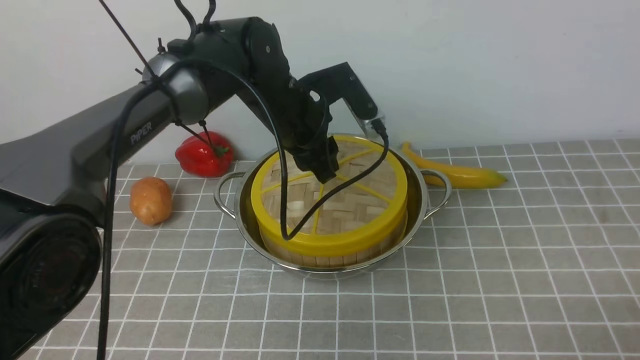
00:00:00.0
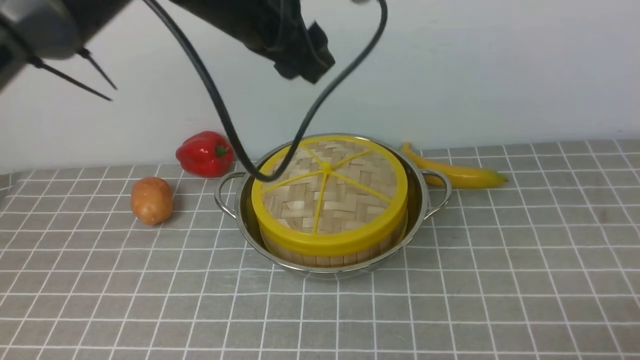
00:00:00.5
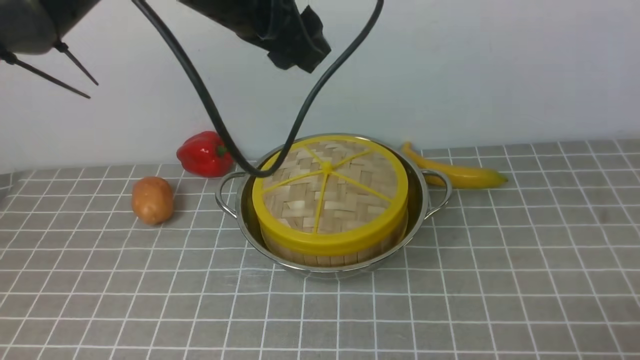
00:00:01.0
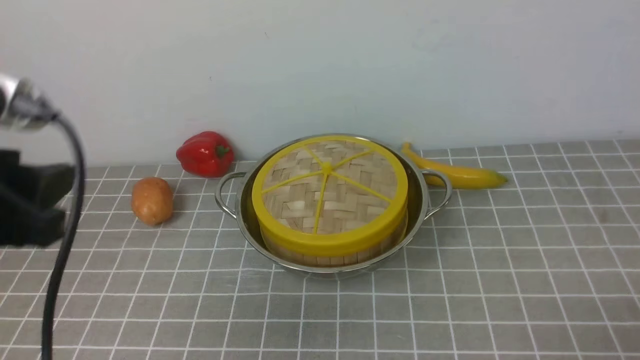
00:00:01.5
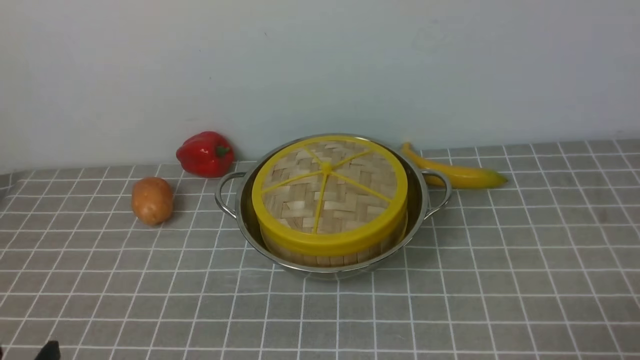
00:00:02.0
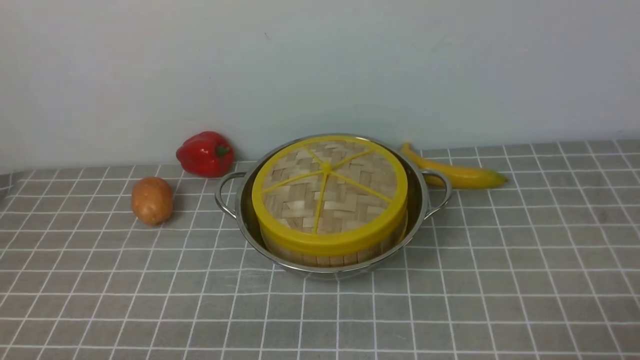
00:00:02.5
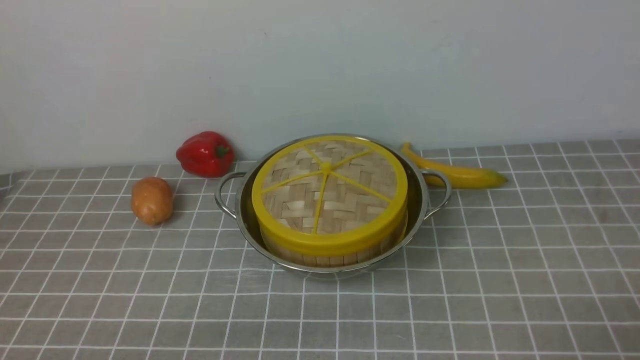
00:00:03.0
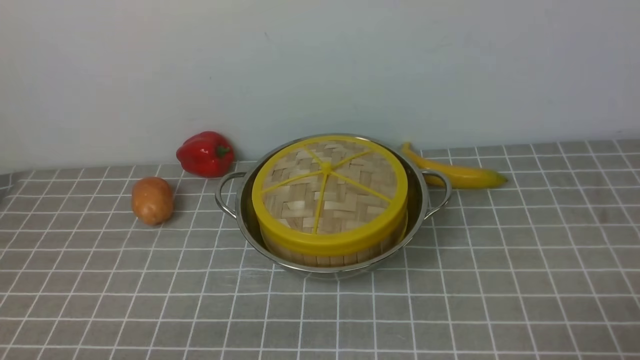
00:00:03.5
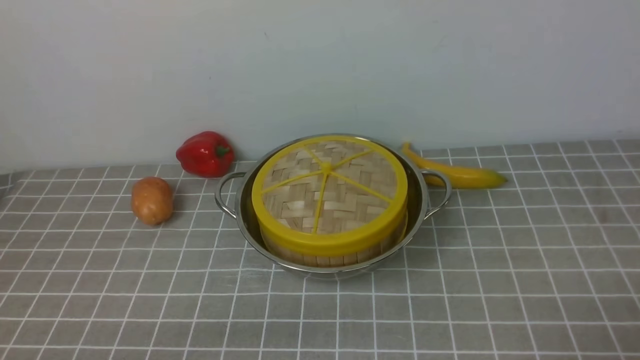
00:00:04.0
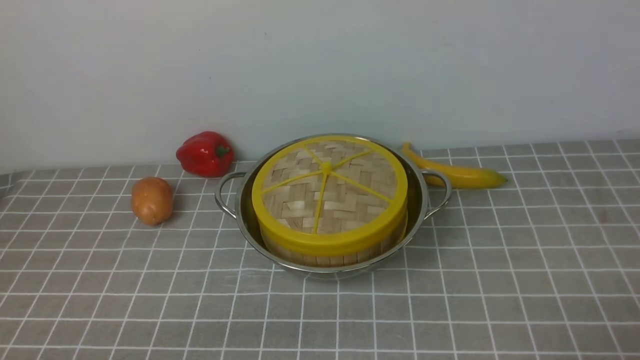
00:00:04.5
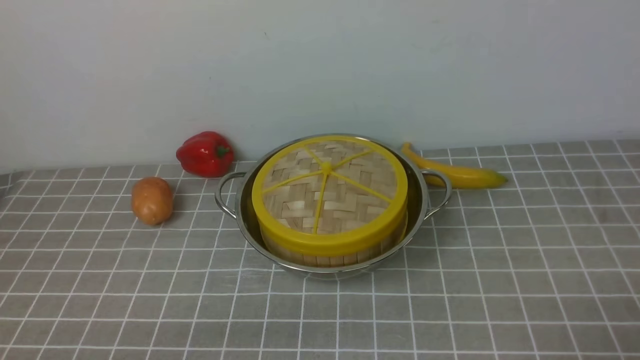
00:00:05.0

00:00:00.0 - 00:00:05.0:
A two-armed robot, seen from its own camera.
Task of the whole recording: place the steamer in the pot on the grey tablecloth, and put the lid on the steamer.
00:00:00.0 - 00:00:02.5: The left gripper is displaced backward and to the left by approximately 40 cm, and opens its fingers.
